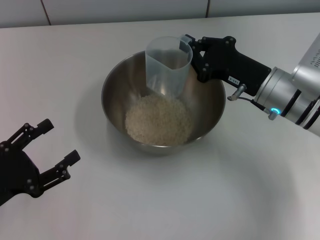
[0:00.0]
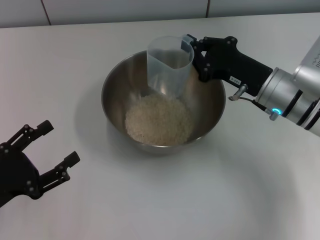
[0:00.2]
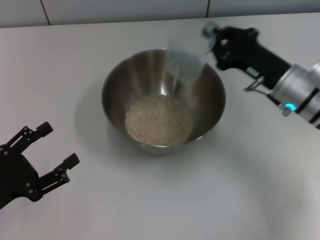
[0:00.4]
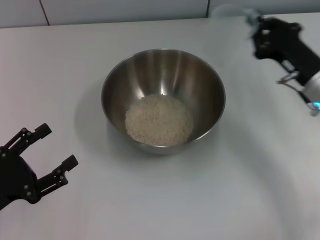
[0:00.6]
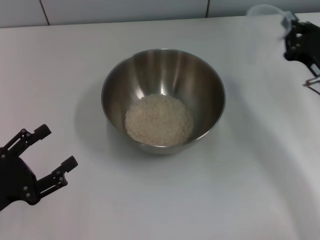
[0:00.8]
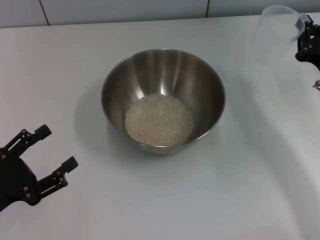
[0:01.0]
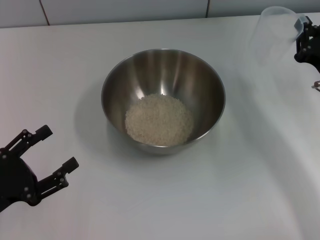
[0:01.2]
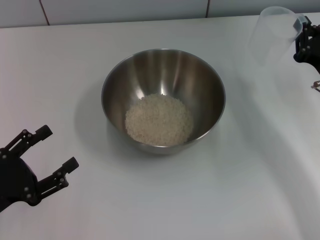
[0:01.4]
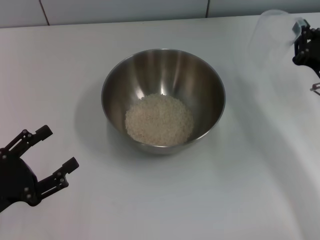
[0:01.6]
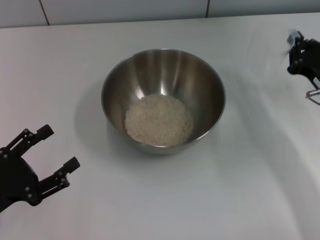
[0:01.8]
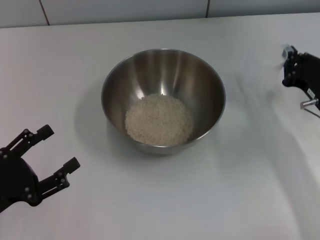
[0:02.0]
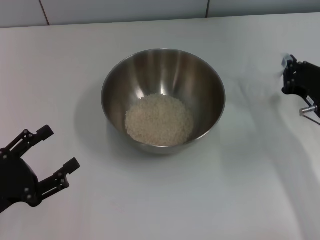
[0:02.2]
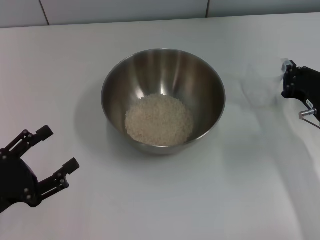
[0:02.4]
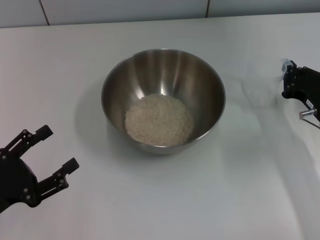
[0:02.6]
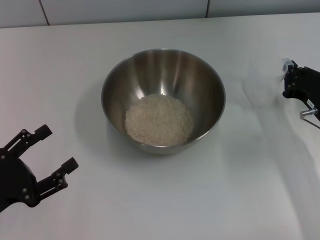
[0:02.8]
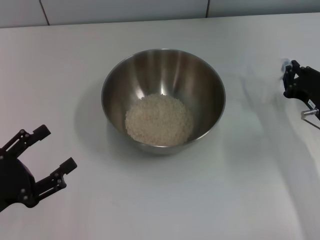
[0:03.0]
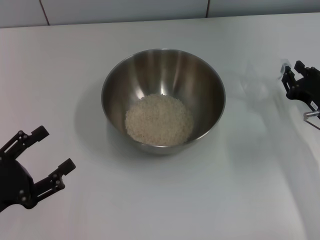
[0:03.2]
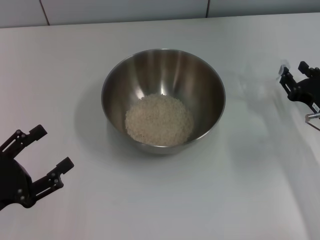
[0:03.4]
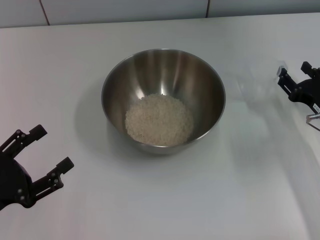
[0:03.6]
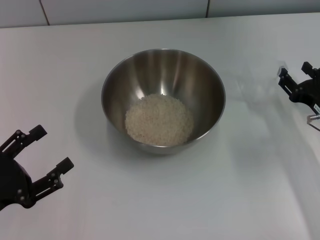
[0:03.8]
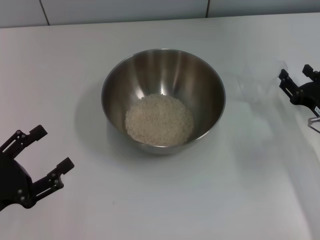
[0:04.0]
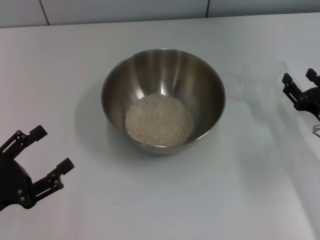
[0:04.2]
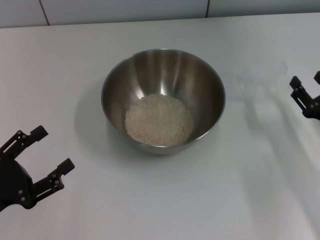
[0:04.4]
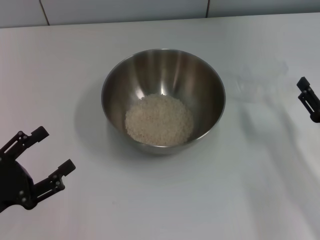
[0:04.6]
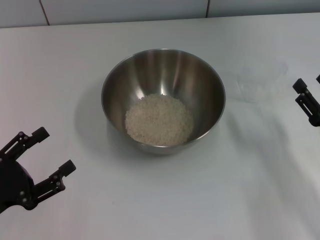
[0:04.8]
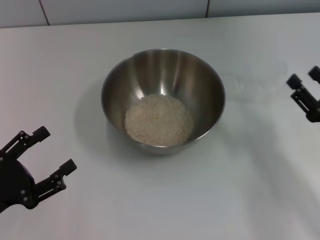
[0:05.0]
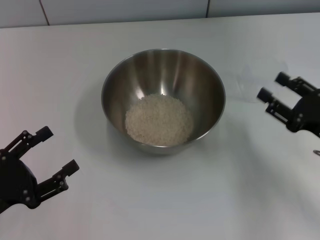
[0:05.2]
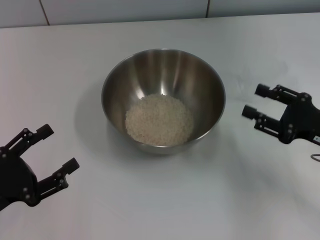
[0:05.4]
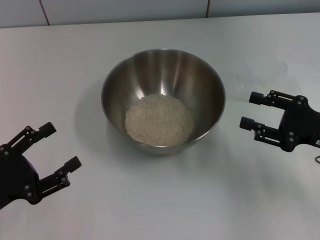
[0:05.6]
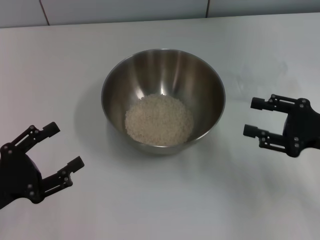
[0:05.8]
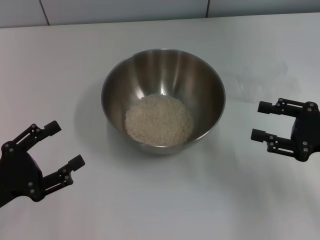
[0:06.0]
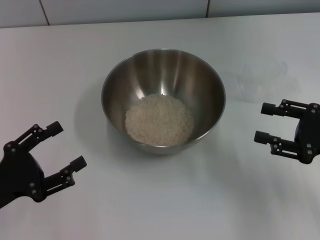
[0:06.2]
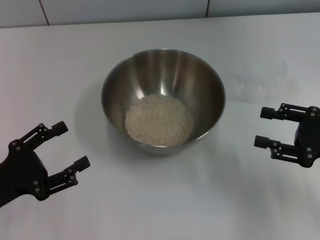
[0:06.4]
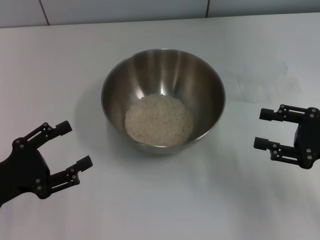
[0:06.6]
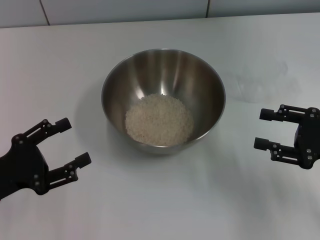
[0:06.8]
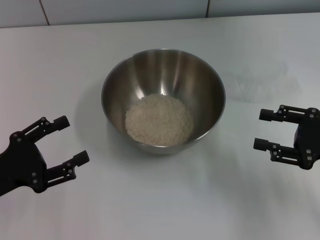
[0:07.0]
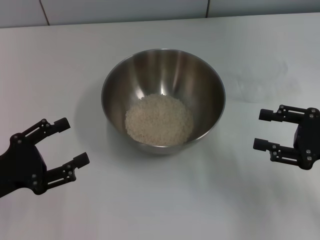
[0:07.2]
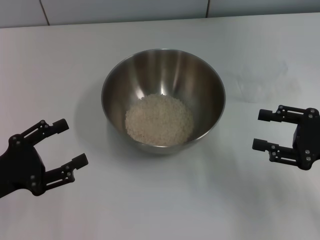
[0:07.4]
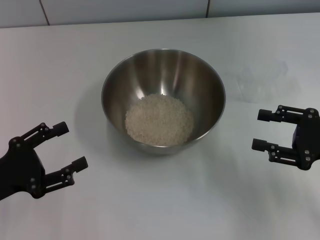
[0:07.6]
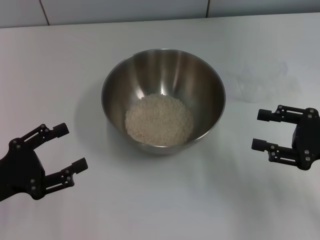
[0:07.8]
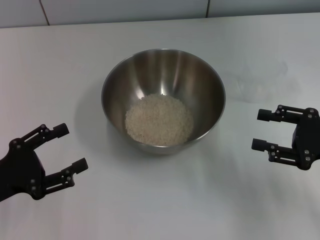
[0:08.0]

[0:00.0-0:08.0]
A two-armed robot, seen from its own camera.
Task of the whole recording: Place the bowl in the middle of the table with one hand and pour the rice from the grain cup into it with the other hand.
Step, 0:00.0 to 0:04.4: Place the cup on the table with the right gripper.
0:00.0 to 0:01.6: The right gripper goes roughly 10 cm to the right.
0:01.6 to 0:03.2: The grippers make only small movements.
0:03.2 to 0:04.8: The right gripper moves backward, roughly 10 cm, and opens.
0:04.8 to 0:06.4: The right gripper is displaced upward by about 5 cm.
0:06.4 to 0:08.0: The grippers make only small movements.
